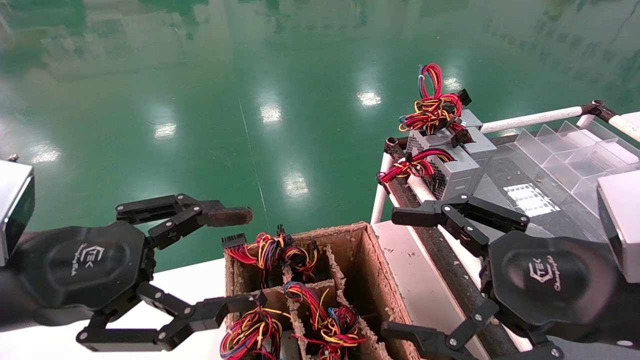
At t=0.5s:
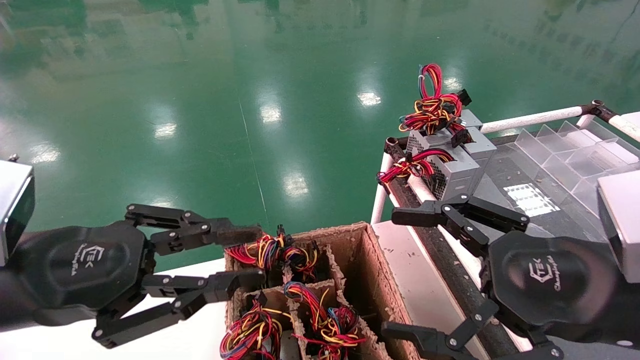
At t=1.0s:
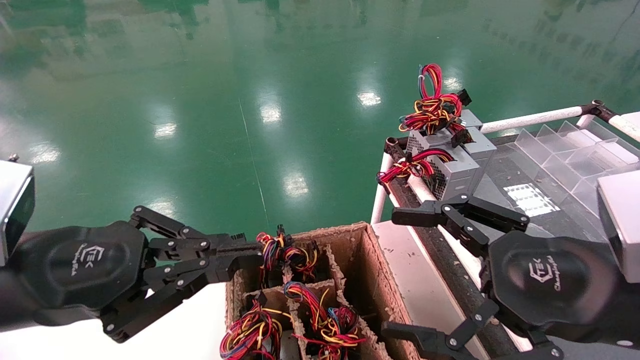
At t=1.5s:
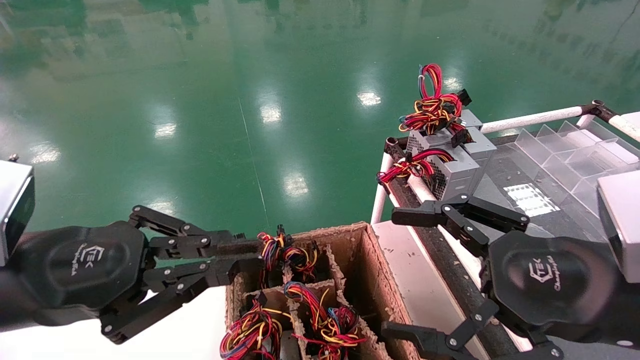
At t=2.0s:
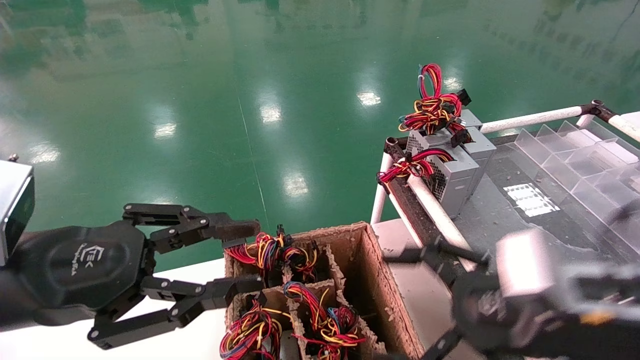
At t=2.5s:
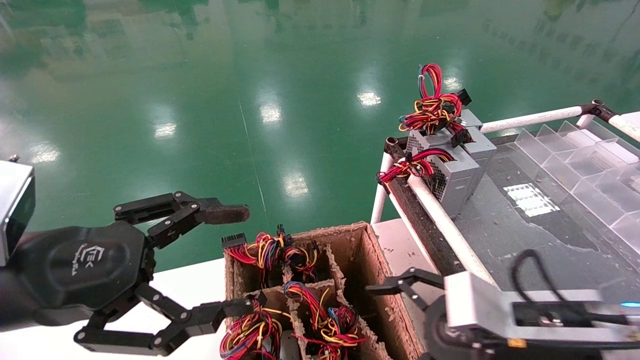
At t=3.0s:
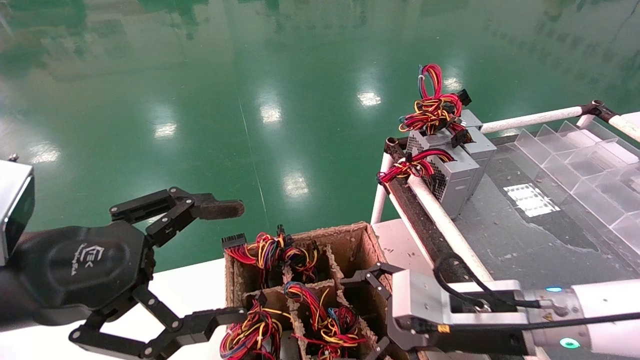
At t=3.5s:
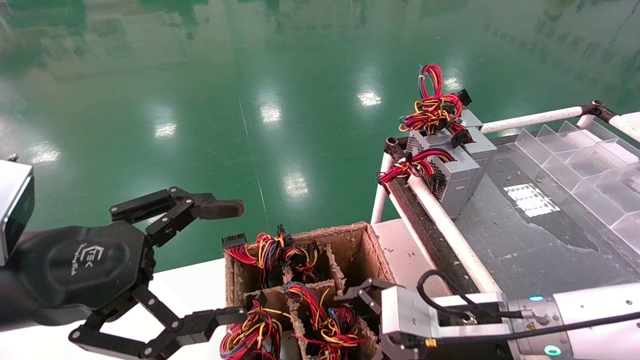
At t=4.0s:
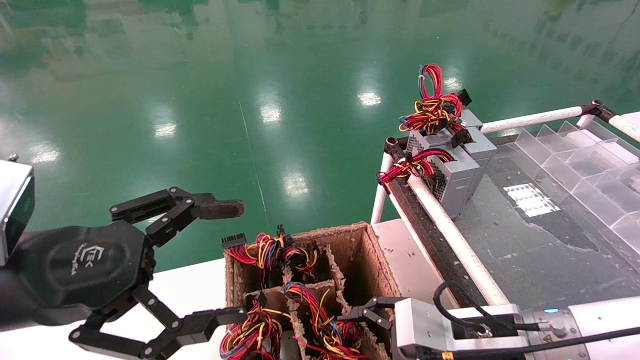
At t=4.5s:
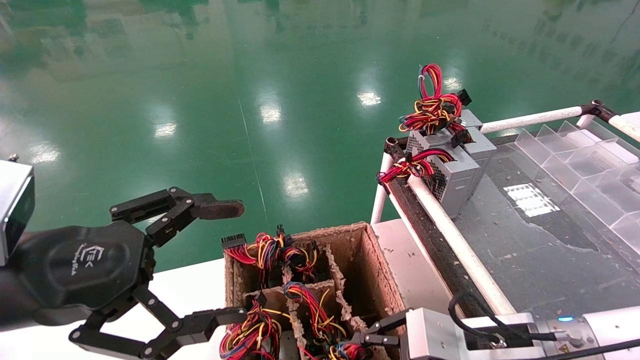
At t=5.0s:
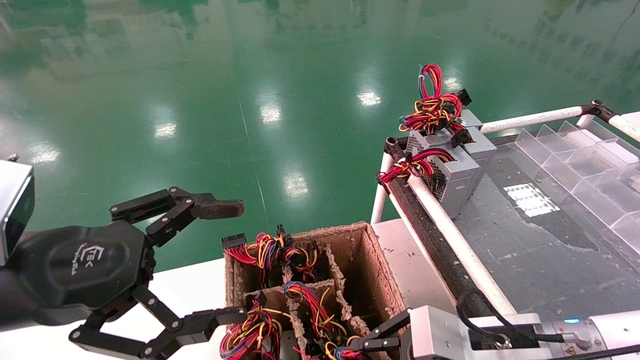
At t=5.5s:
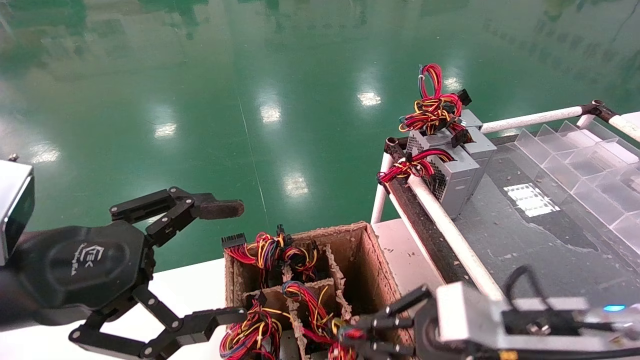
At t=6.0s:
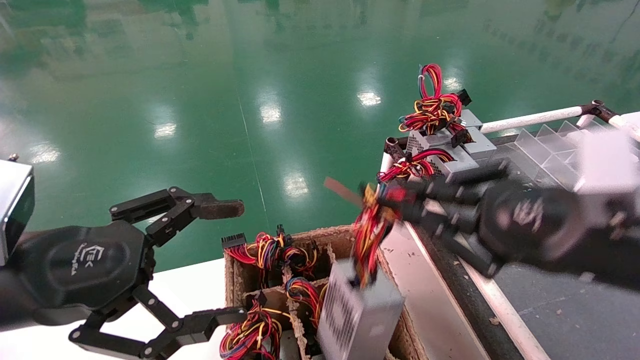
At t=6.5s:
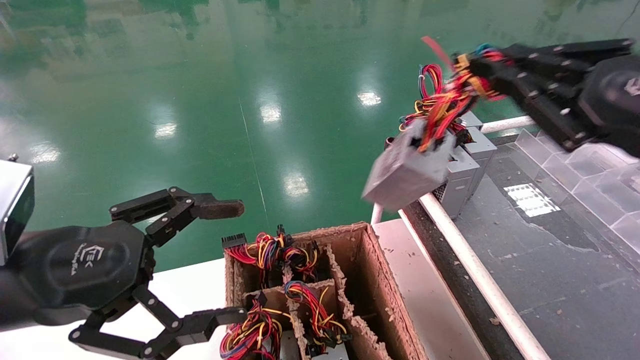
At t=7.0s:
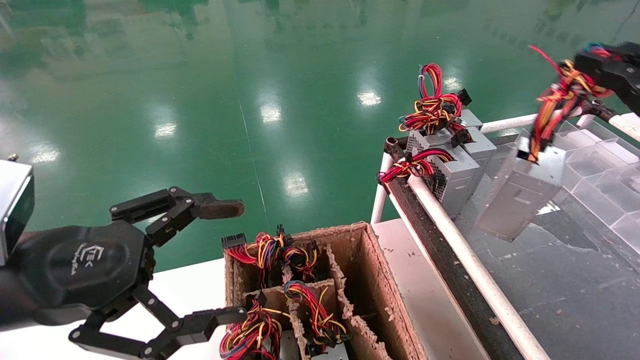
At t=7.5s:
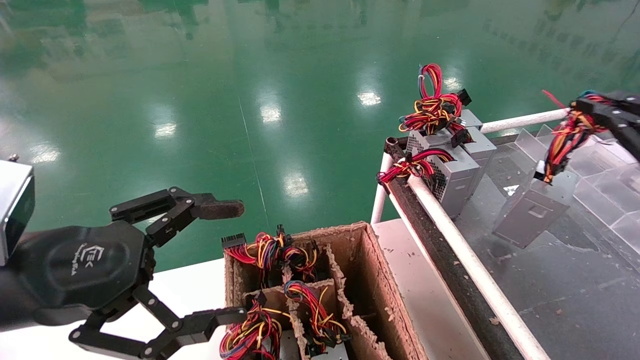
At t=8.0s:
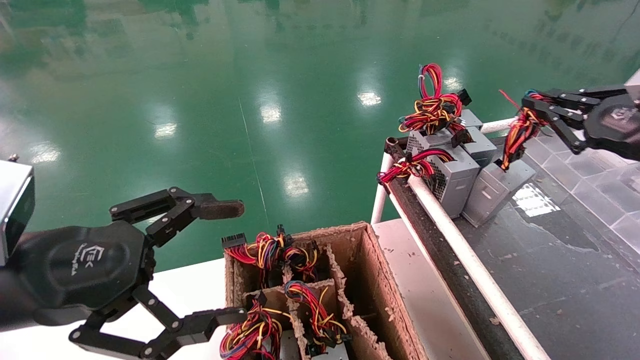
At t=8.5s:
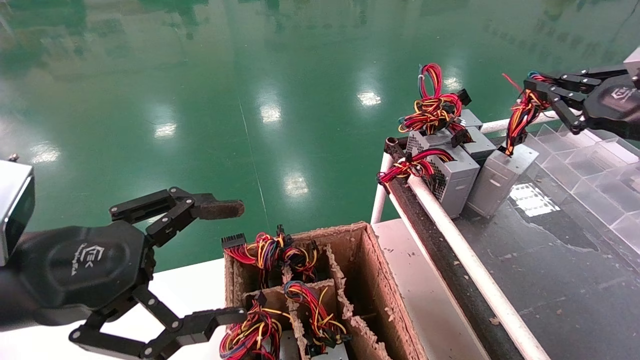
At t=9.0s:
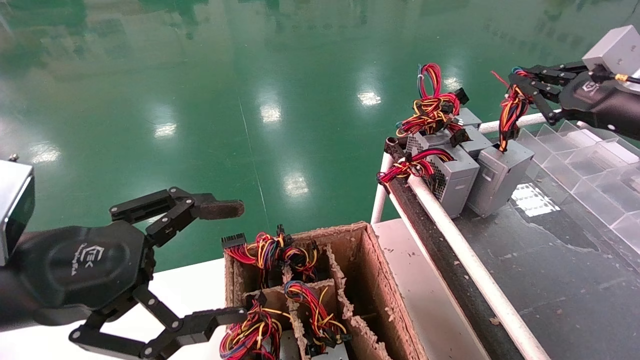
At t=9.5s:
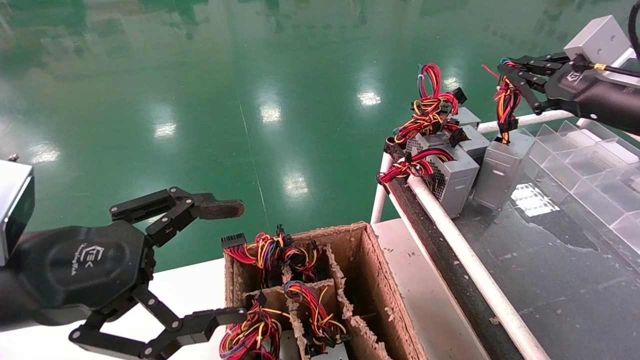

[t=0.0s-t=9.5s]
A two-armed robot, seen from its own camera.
Step, t=1.5s to t=5.0s: Grab and lift the power supply from the large box.
t=0.0s to t=2.0s: The left gripper closes up.
t=2.0s to t=4.0s: The left gripper opens up; the right gripper goes roughly 15 cm downward, forward and to the left.
t=4.0s to t=5.5s: The right gripper travels upward by about 5 cm, and closes.
t=5.5s to t=7.5s: The right gripper heads to the right and upward, covering some 25 cm.
t=7.5s to t=9.5s: The right gripper moves forward and to the left, about 15 cm.

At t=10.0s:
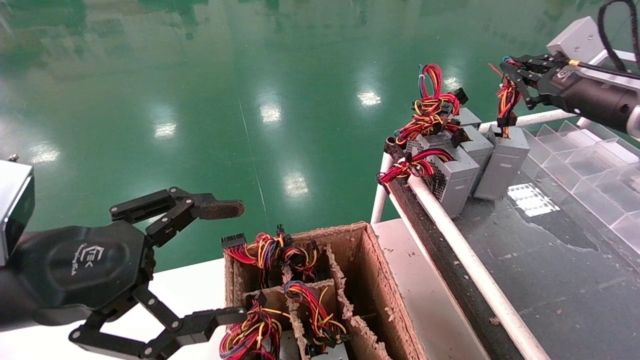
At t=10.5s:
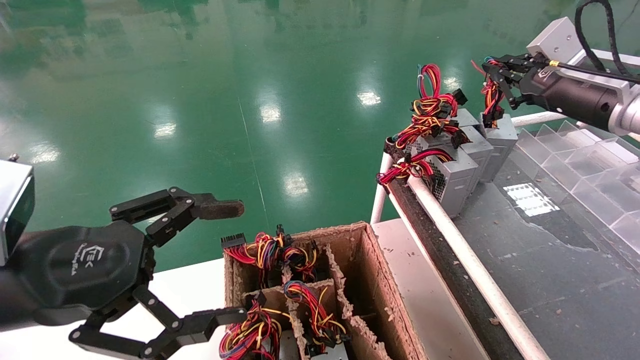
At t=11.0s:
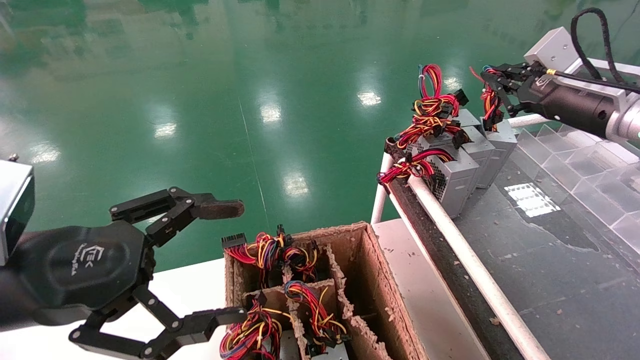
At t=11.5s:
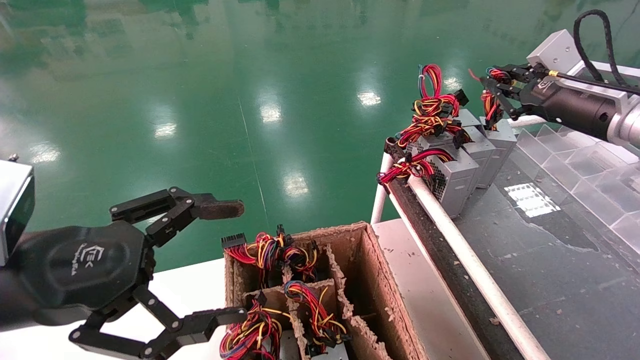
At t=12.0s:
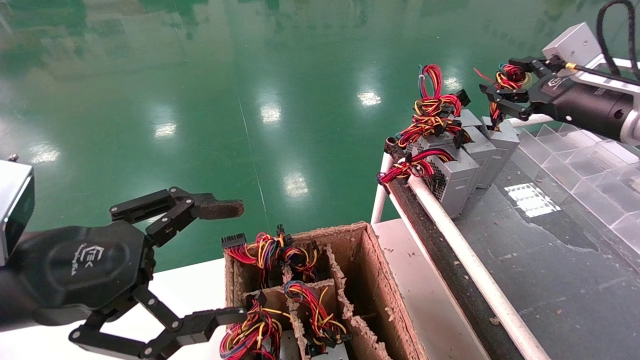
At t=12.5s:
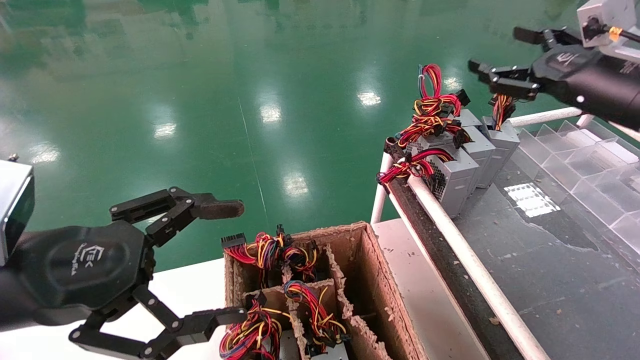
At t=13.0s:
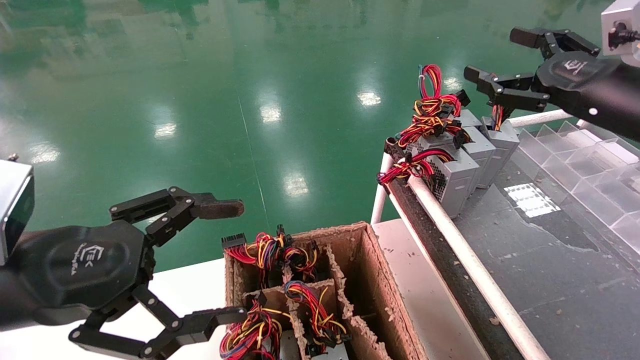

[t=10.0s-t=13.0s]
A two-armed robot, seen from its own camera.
t=10.0s to t=11.5s: The grippers stay close to where they were, moving slightly.
t=11.5s to t=13.0s: The right gripper travels backward by approximately 5 cm, and opens its fingers.

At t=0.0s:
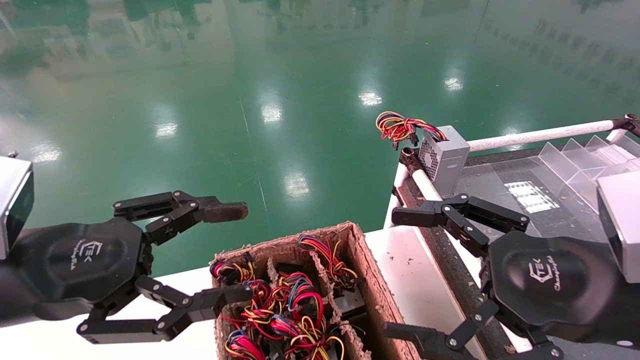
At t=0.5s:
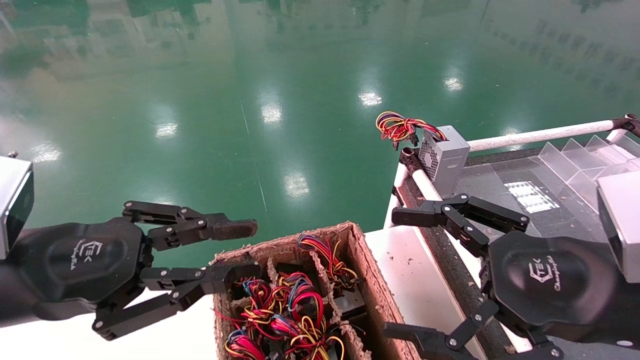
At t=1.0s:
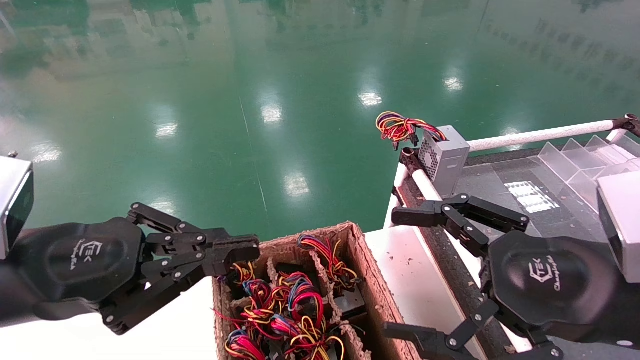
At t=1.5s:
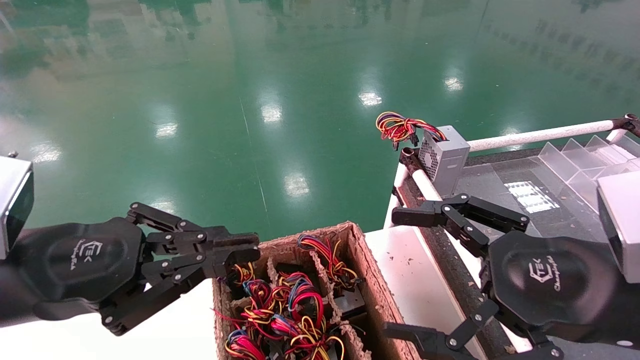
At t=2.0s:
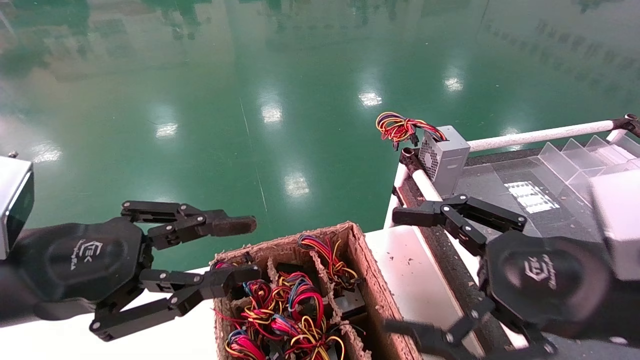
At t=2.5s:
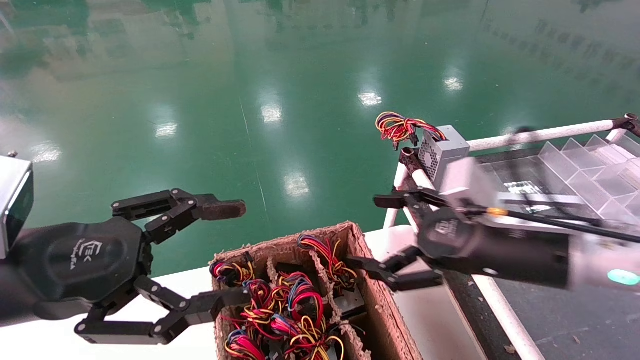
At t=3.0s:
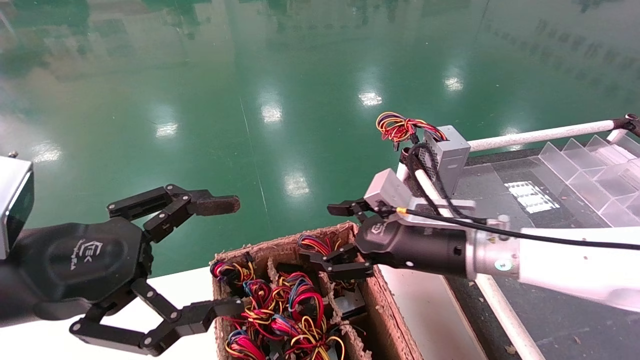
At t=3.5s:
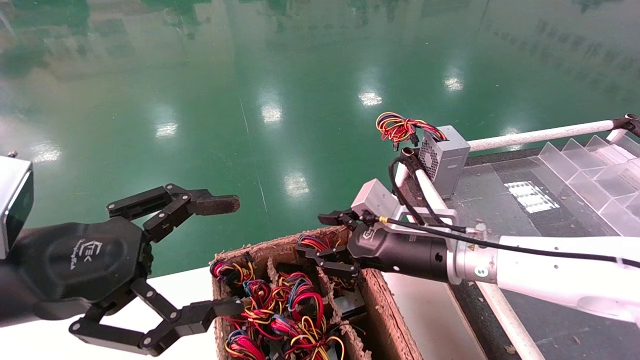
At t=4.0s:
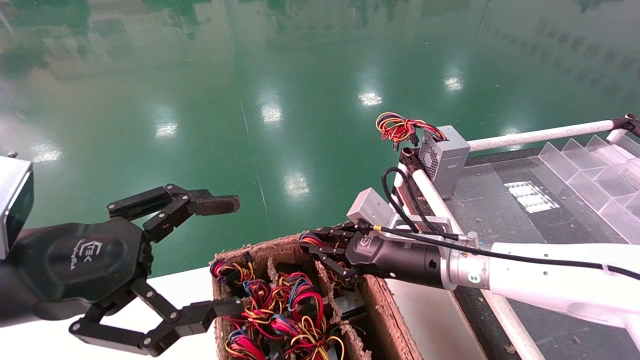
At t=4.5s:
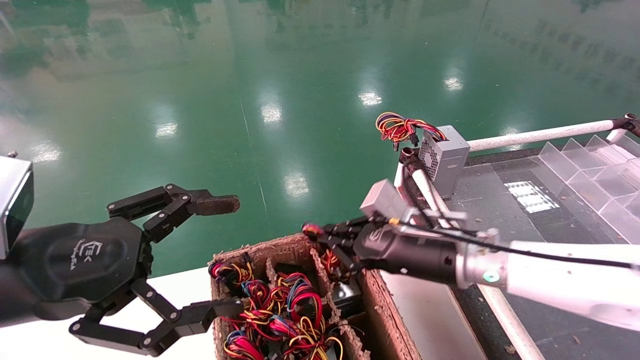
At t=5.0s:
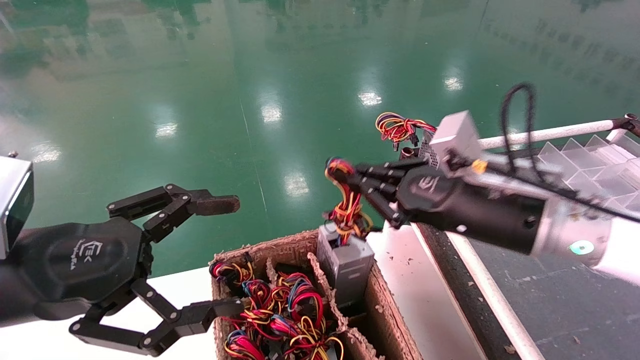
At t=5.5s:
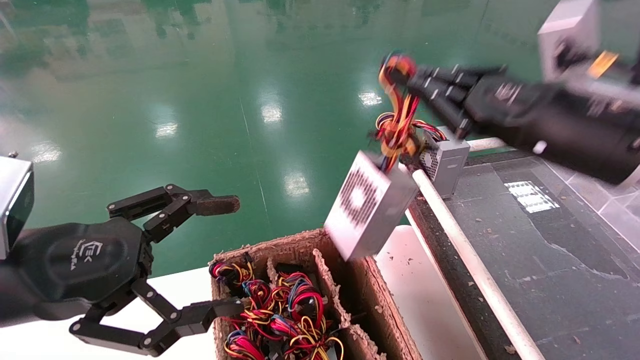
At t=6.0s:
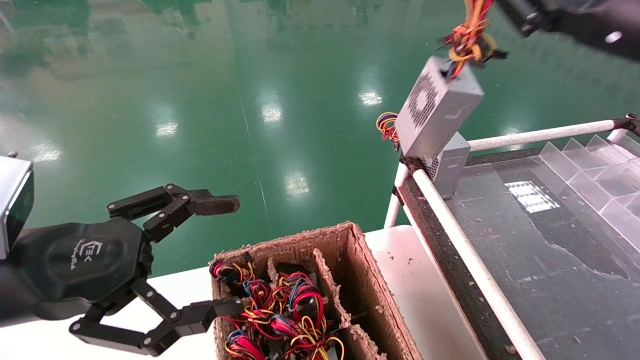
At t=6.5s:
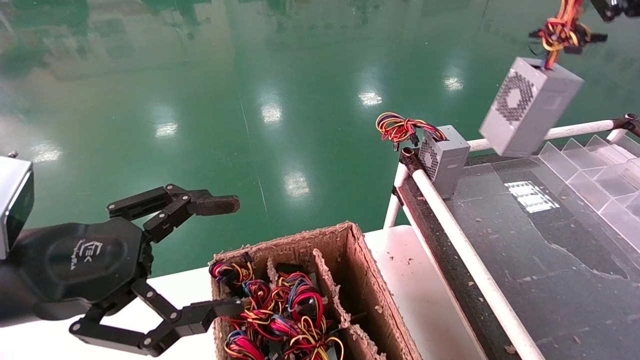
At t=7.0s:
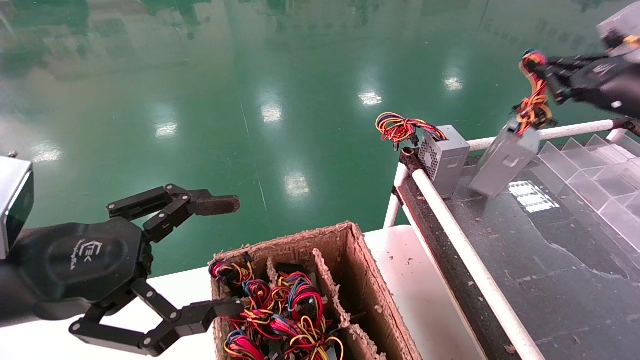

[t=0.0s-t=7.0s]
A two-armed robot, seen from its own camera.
Step, t=1.0s to t=4.0s: Grab and lift the power supply from the large box.
t=0.0s to t=2.0s: The left gripper closes its fingers.
t=2.0s to t=3.5s: The right gripper travels forward, to the left and downward by roughly 20 cm. Meanwhile the left gripper opens up.
t=3.5s to t=5.0s: The right gripper travels upward and to the right by about 10 cm, and closes its fingers.
t=5.0s to t=7.0s: The right gripper is displaced to the right, upward and forward by some 25 cm.
